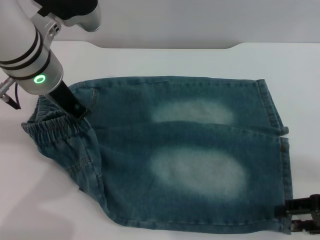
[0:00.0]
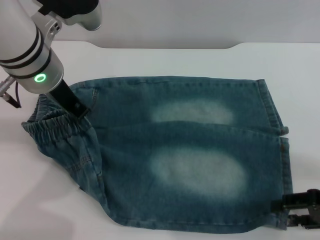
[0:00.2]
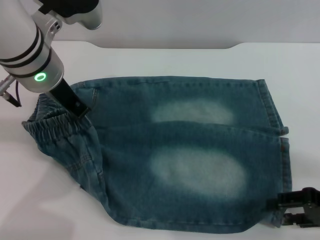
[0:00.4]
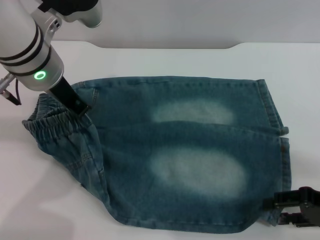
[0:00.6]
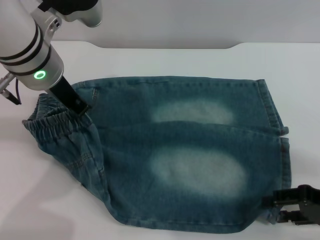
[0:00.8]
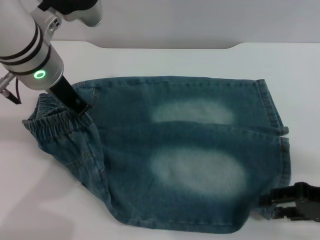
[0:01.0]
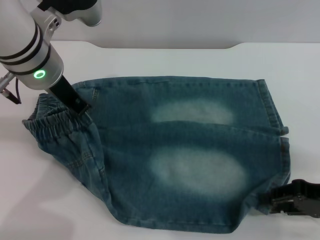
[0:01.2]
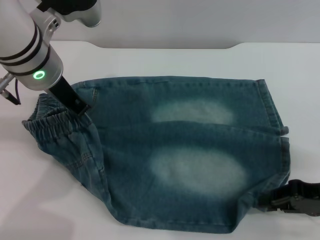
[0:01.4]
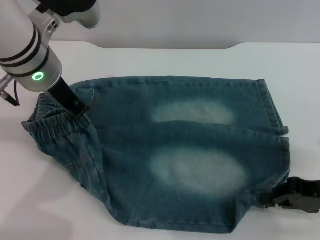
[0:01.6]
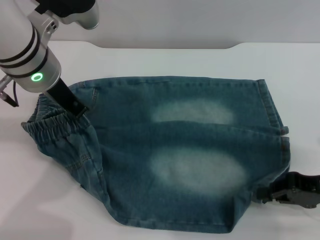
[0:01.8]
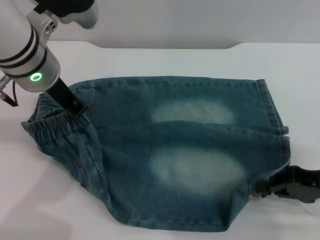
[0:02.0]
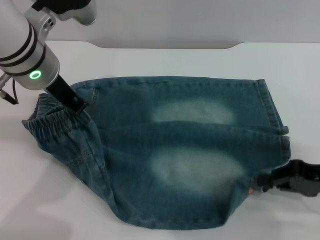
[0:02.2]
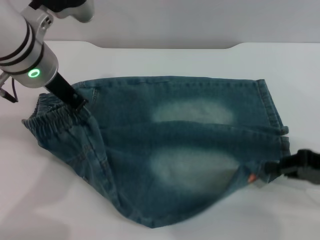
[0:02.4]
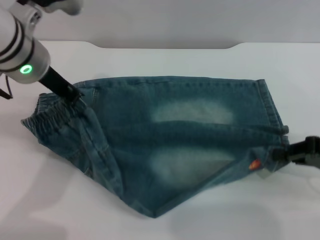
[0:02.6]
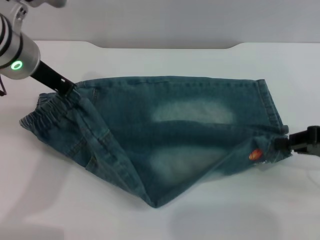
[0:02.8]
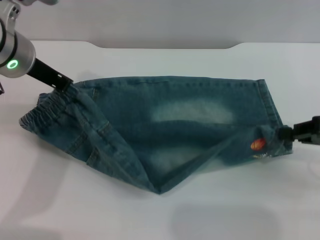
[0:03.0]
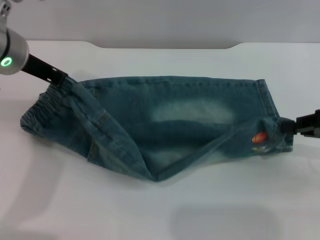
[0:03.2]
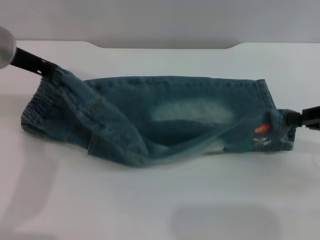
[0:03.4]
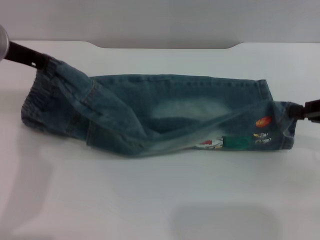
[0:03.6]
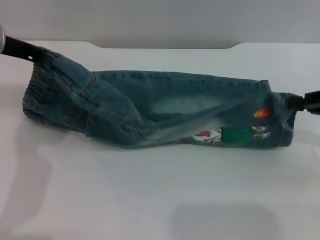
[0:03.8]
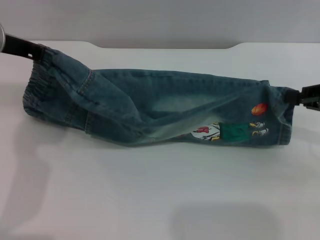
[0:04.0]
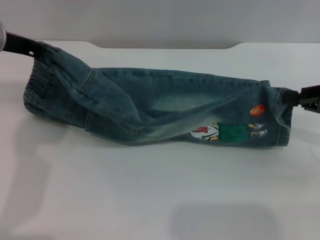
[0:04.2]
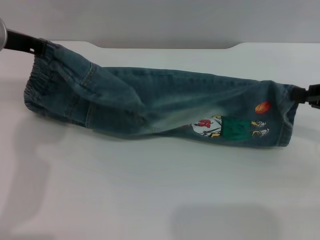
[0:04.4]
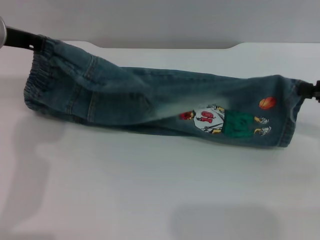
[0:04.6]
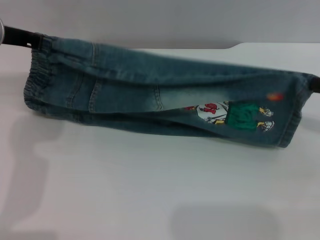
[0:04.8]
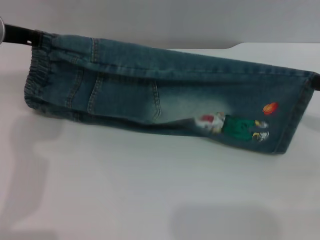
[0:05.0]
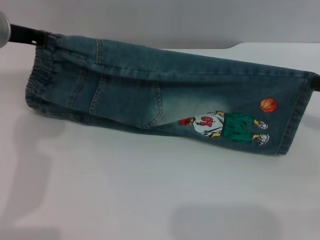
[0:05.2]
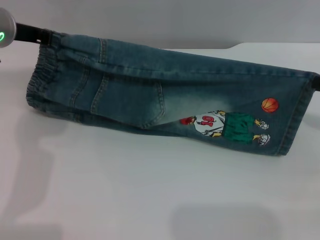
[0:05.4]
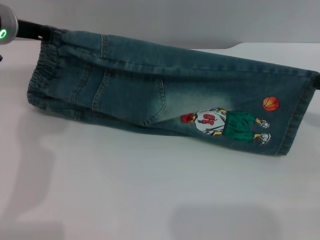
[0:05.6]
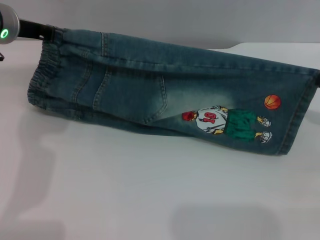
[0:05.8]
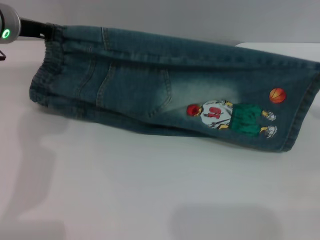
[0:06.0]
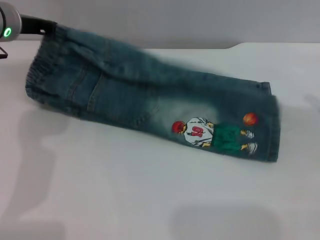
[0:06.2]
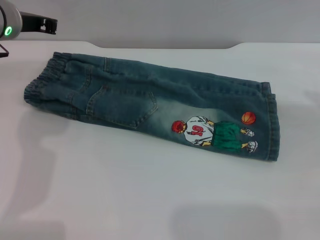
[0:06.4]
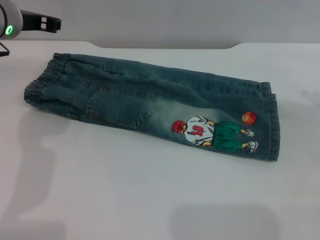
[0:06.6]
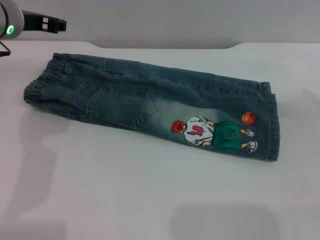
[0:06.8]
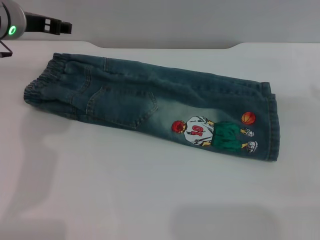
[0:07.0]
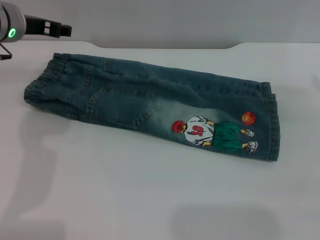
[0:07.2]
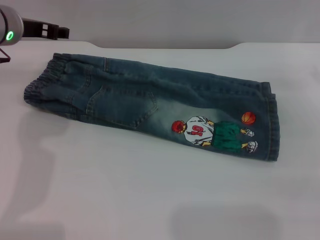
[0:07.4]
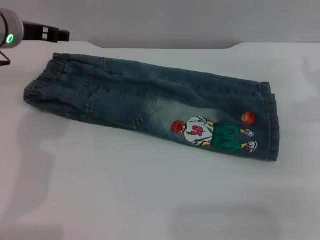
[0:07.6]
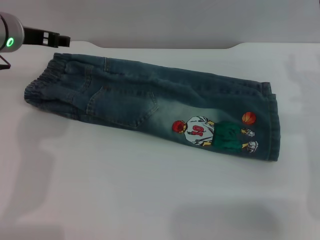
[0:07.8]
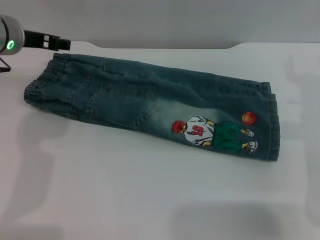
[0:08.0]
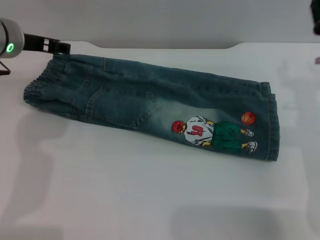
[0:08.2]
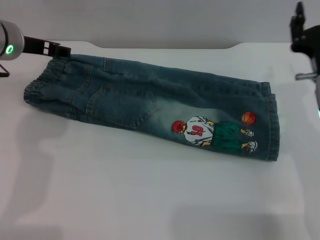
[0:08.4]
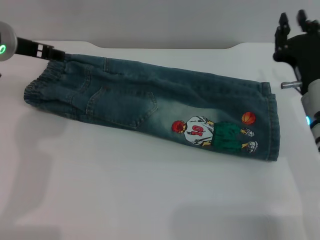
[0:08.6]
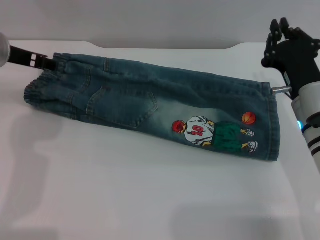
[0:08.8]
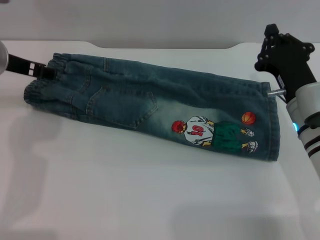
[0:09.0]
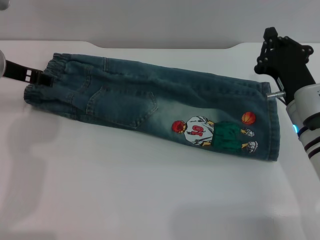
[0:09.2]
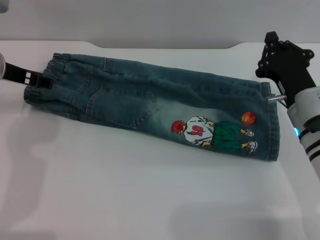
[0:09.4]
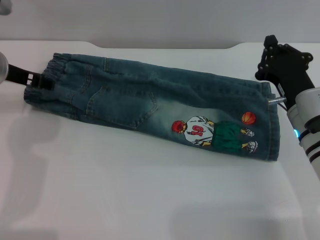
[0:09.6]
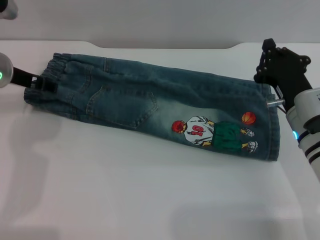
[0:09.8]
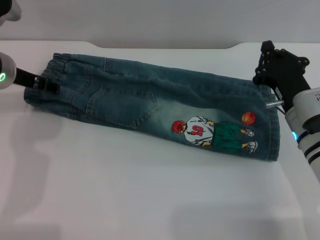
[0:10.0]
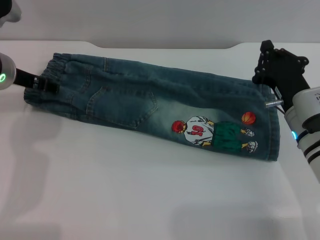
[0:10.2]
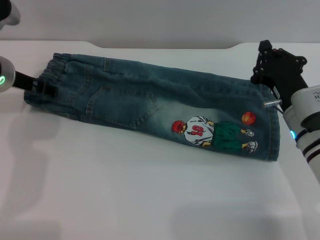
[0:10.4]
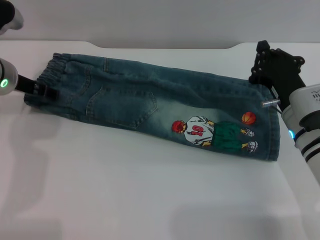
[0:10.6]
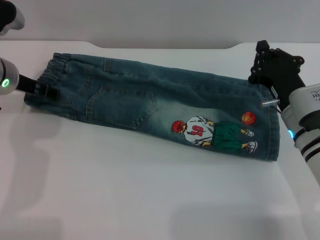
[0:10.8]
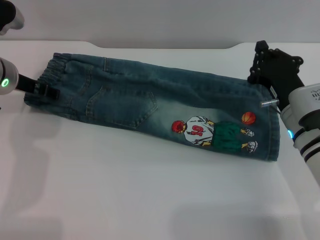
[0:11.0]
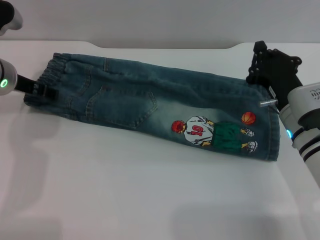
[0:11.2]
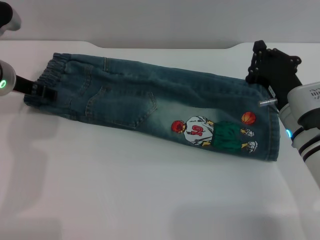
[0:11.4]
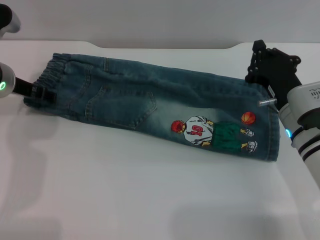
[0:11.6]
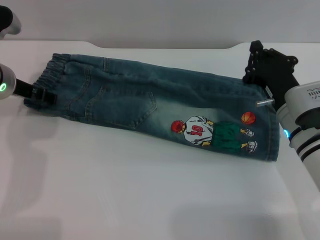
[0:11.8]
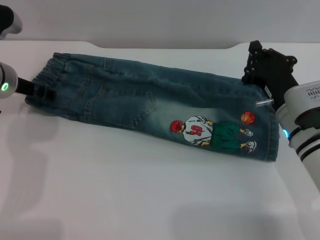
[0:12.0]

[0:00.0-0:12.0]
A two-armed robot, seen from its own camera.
Step, 0:00.0 to 0:06.4: Fold the bottom of the pants upward with both grippers.
0:00.0 to 0:01.6: The right gripper closes up.
0:01.6 to 0:03.0: The right gripper moves upward, roughly 5 cm.
0:06.0 to 0:07.6: The right gripper heads to the left, covering some 10 cm, and opens its fingers; the left gripper opens up.
0:07.6 to 0:09.0: The right gripper is displaced to the left and downward by approximately 10 cm, and closes.
0:09.0 to 0:12.0: The grippers make only small movements.

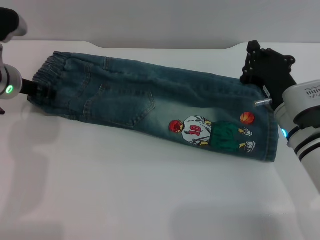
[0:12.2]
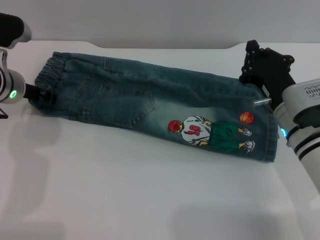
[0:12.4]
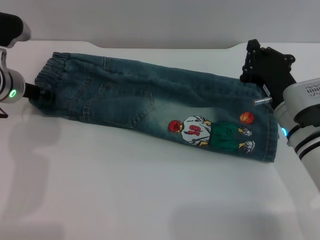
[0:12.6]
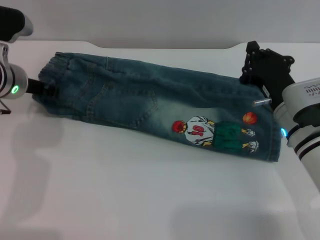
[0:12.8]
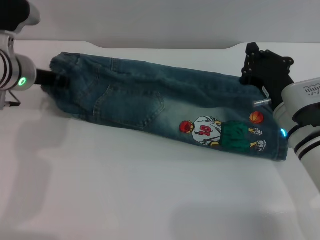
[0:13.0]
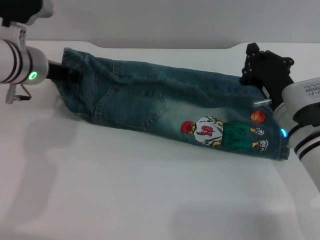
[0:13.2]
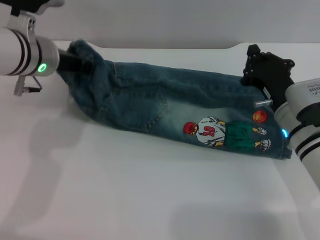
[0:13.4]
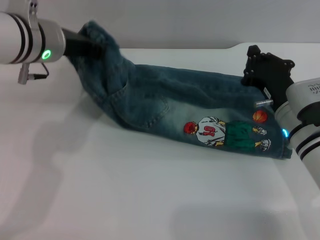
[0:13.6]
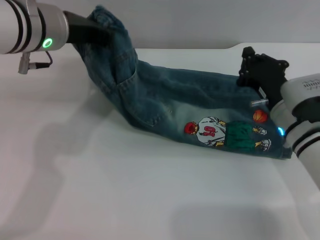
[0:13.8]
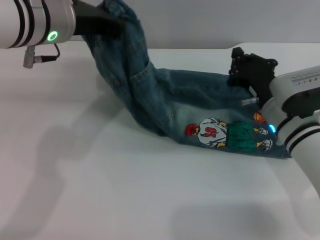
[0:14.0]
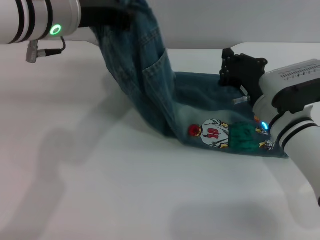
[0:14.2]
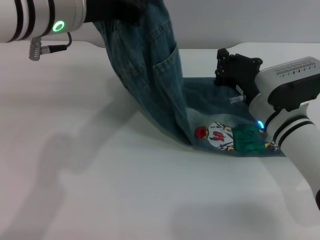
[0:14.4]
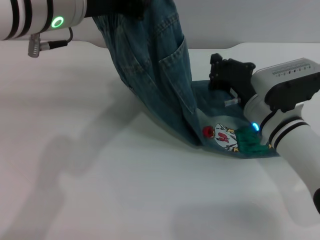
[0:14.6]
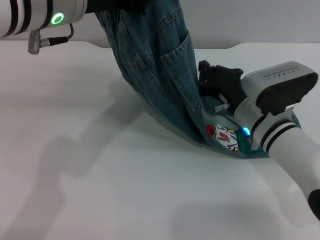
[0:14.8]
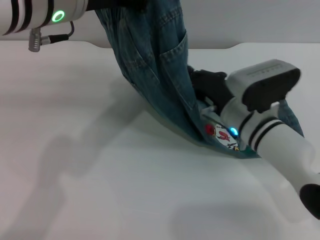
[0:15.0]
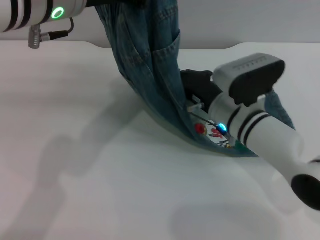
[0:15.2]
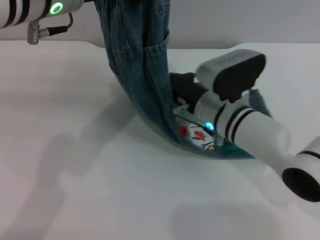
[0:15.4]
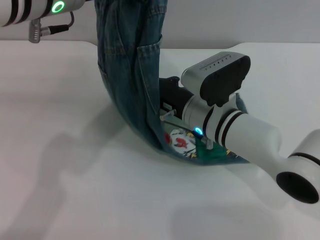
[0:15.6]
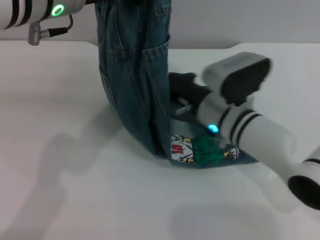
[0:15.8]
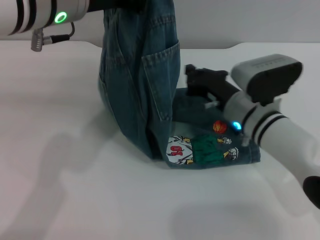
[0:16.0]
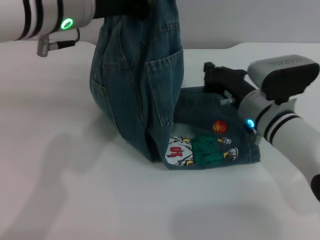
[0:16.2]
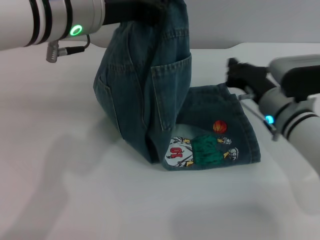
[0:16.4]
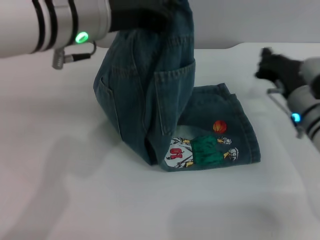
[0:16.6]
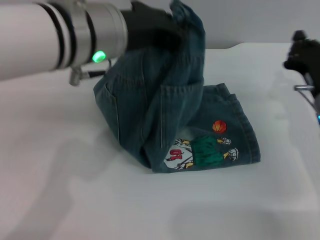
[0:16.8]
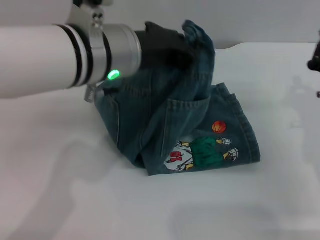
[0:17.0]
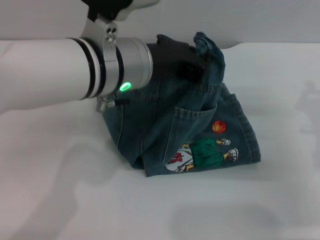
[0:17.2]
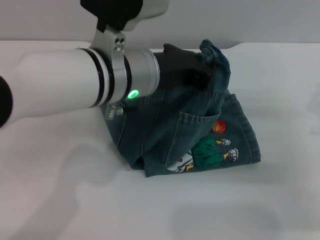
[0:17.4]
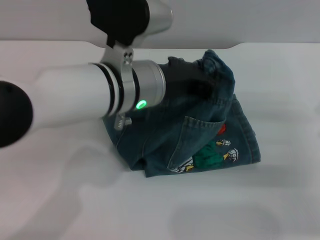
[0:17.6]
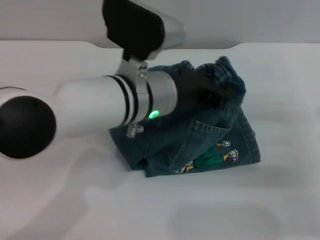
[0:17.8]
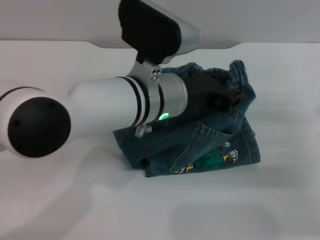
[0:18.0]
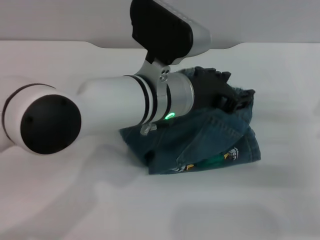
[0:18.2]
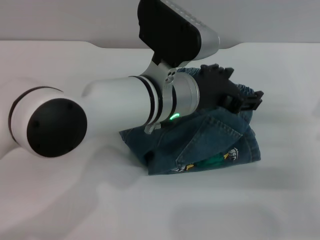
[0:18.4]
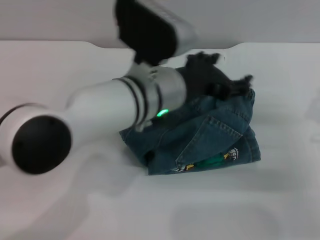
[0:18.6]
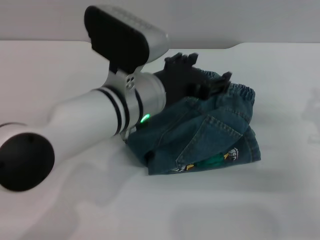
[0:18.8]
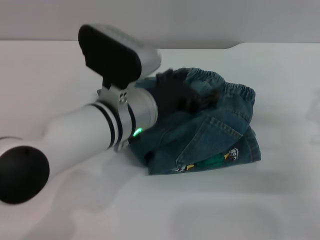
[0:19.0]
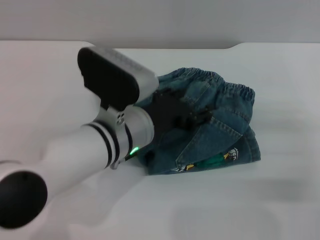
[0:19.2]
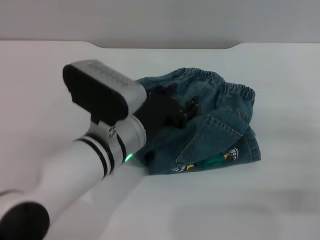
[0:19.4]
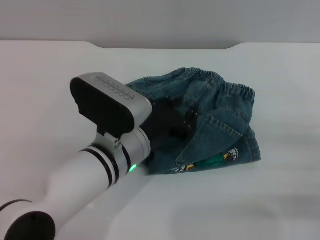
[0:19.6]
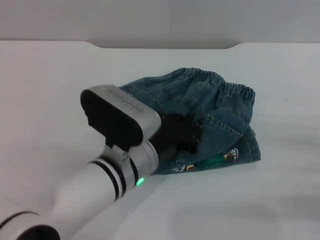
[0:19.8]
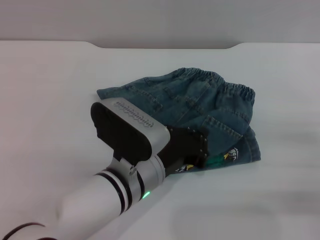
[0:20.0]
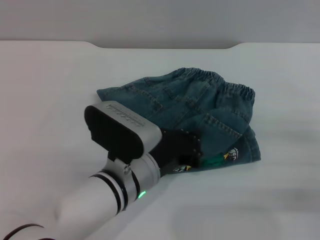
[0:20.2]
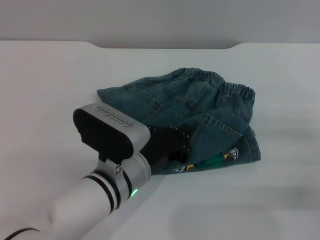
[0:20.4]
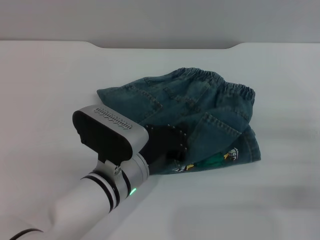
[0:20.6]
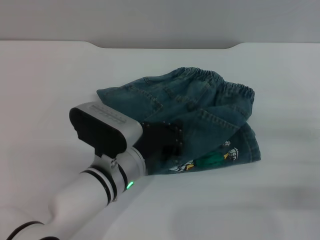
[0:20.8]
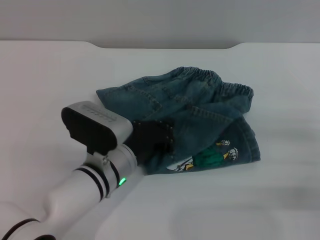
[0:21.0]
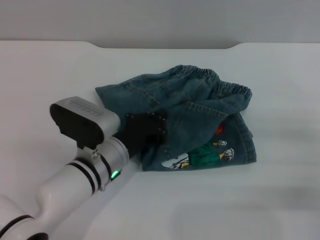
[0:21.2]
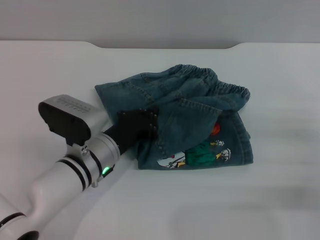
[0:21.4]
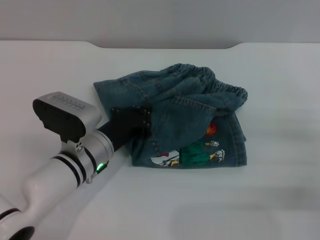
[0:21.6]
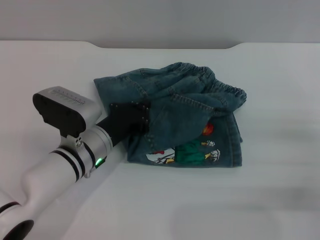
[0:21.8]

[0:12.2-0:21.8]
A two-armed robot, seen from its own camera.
Step, 0:12.2 to 0:18.4: Fold the pants from left to right with the left gripper.
0:12.2 to 0:13.8: The left gripper shifts roughly 15 cm upward and to the right, and closes up.
0:13.8 to 0:15.4: The right gripper is displaced to the left by about 10 cm, while the left gripper heads upward, covering about 5 cm.
0:15.4 to 0:17.0: The left gripper moves downward, roughly 5 cm, while the right gripper is displaced to the right by about 15 cm.
0:17.0 to 0:18.6: The left gripper is displaced downward by roughly 5 cm, and opens its fingers.
0:18.6 to 0:20.2: The right gripper shifts by about 5 cm; the left gripper goes approximately 10 cm downward and backward, and closes.
0:20.2 to 0:21.8: The left gripper is displaced to the left and forward by about 10 cm.

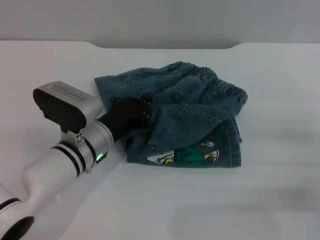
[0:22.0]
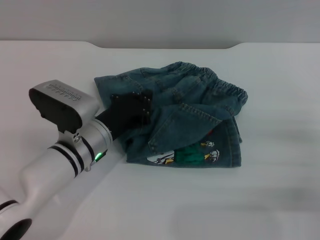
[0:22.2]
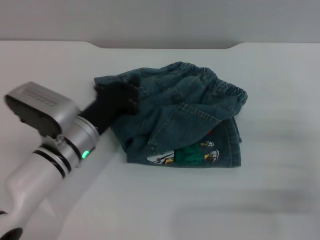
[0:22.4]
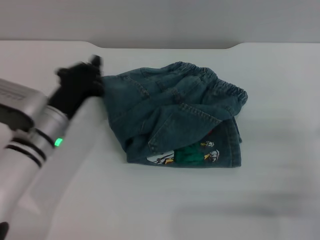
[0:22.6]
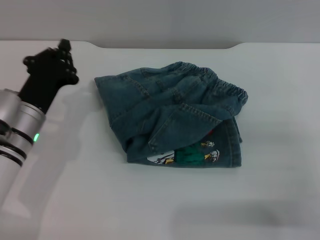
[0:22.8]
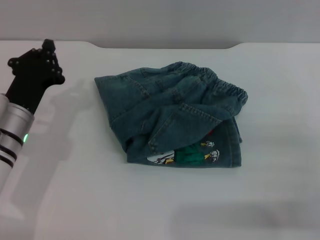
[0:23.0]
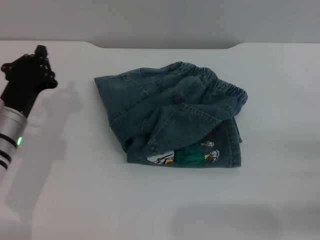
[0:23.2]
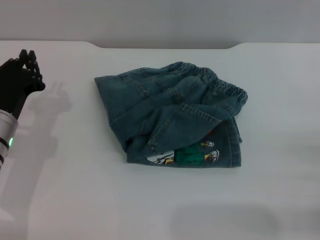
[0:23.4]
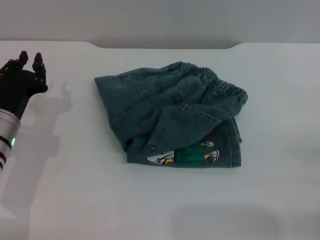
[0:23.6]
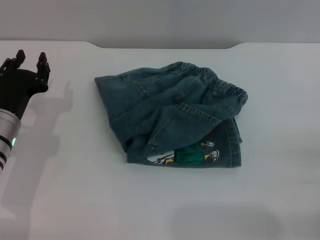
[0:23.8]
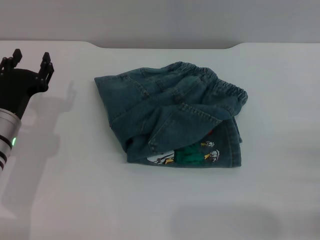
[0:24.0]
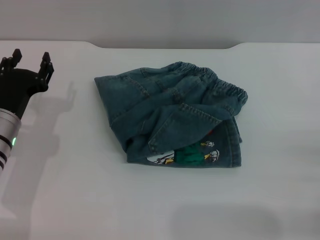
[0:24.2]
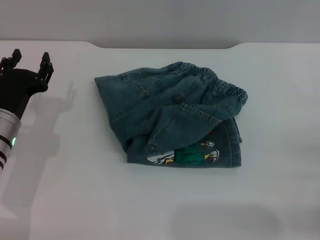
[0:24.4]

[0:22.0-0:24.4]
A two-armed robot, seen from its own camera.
0:22.0 to 0:23.2: The left gripper is displaced to the left by approximately 10 cm.
0:23.2 to 0:24.4: The left gripper opens up.
